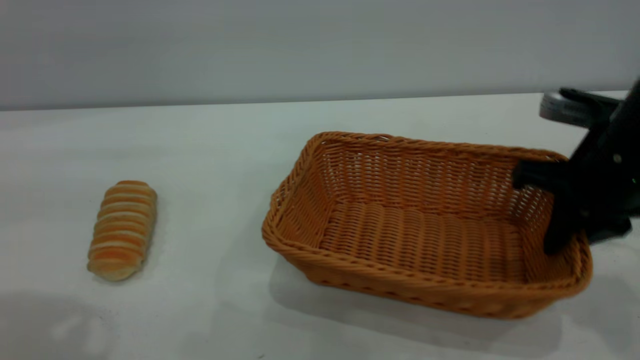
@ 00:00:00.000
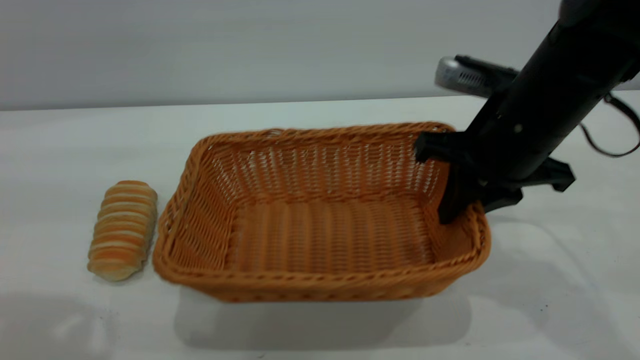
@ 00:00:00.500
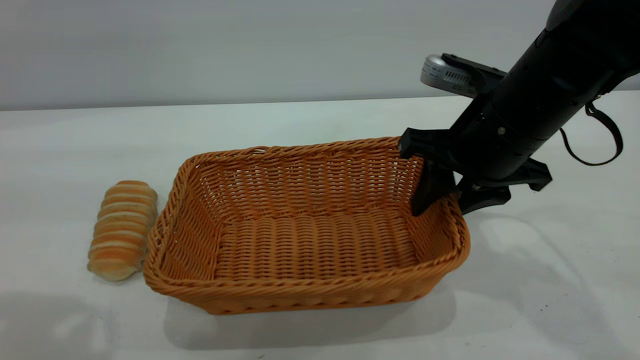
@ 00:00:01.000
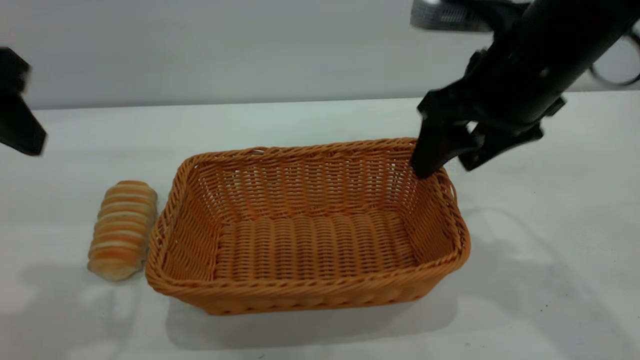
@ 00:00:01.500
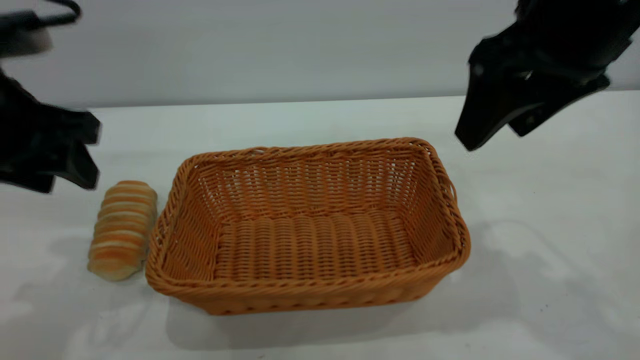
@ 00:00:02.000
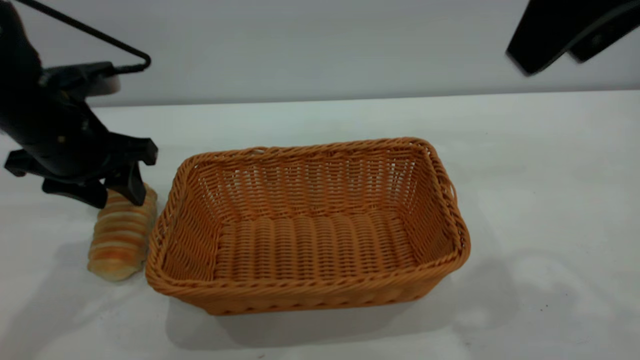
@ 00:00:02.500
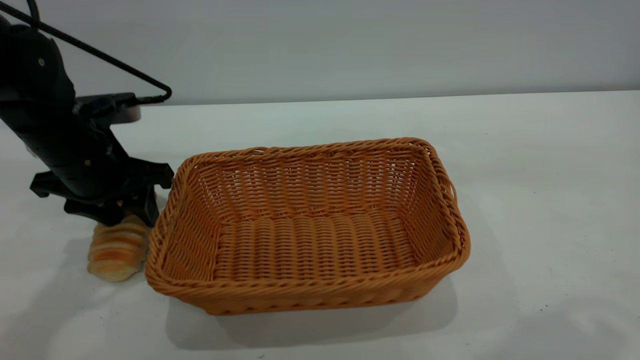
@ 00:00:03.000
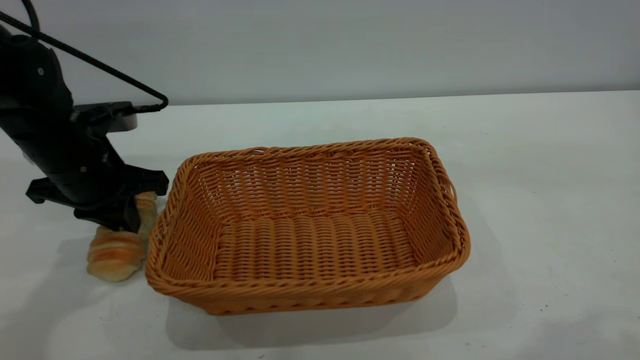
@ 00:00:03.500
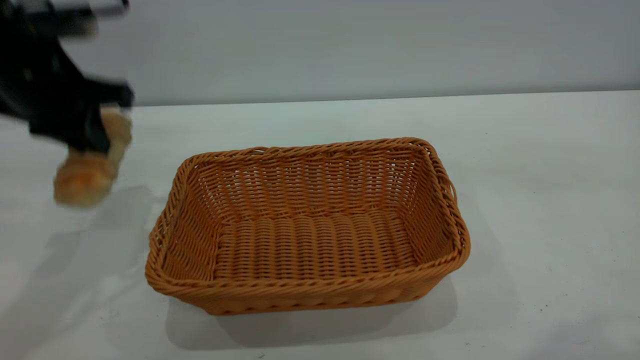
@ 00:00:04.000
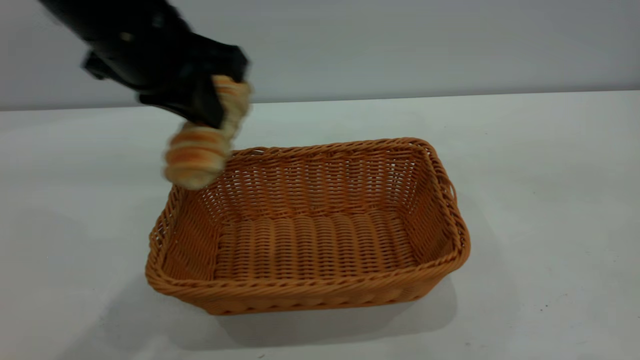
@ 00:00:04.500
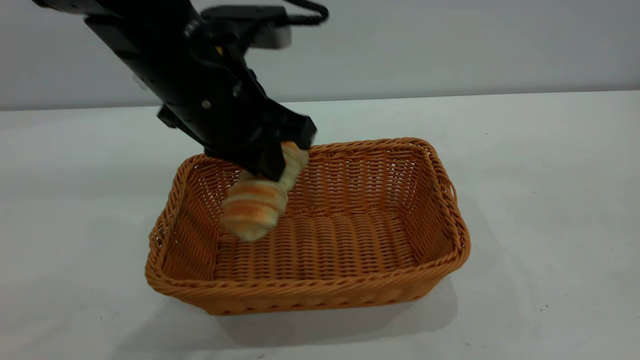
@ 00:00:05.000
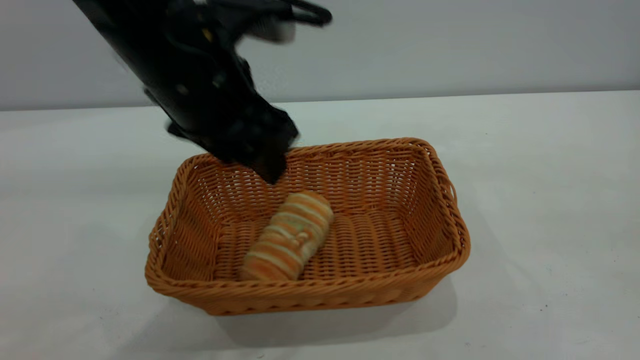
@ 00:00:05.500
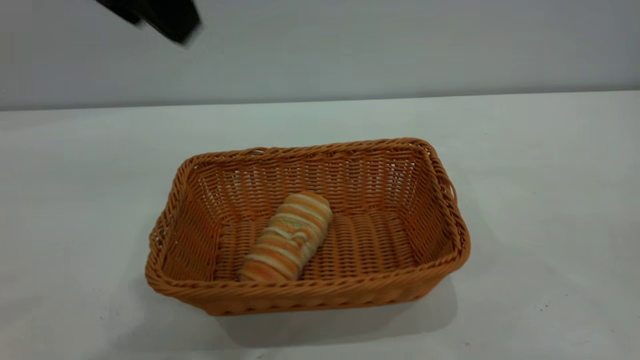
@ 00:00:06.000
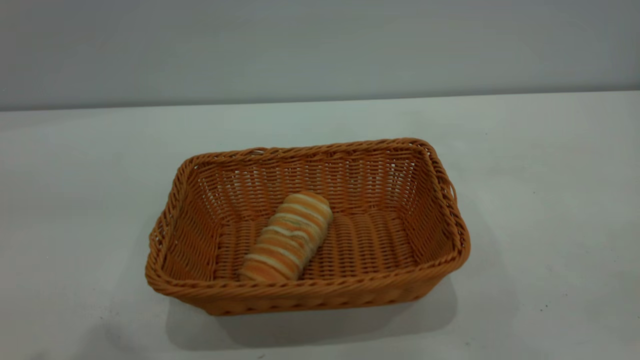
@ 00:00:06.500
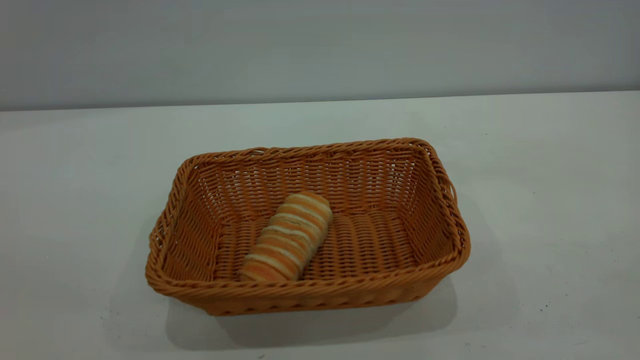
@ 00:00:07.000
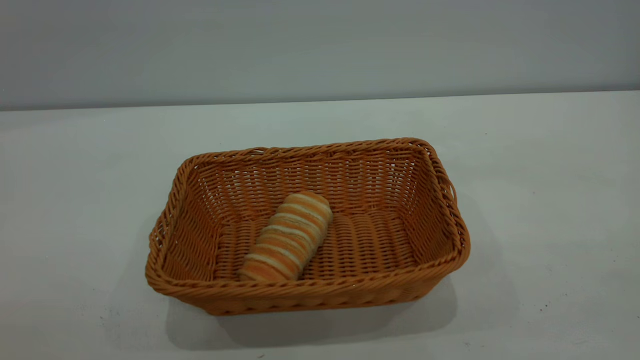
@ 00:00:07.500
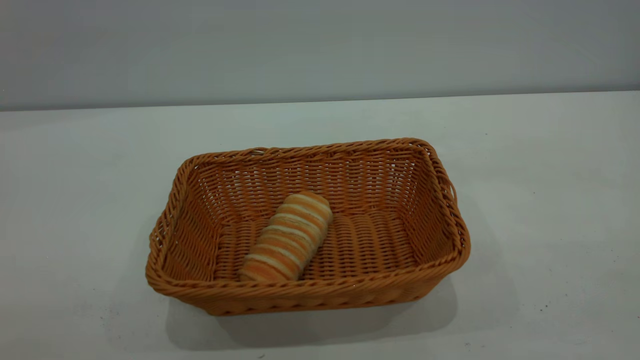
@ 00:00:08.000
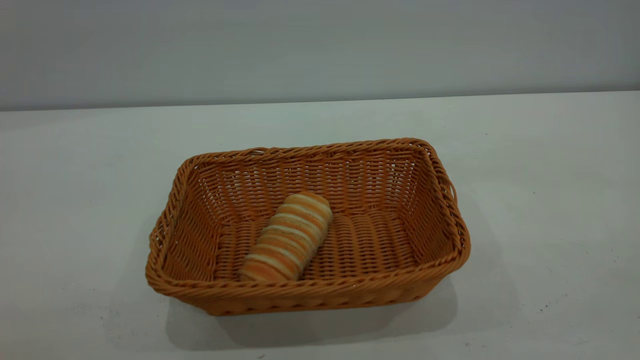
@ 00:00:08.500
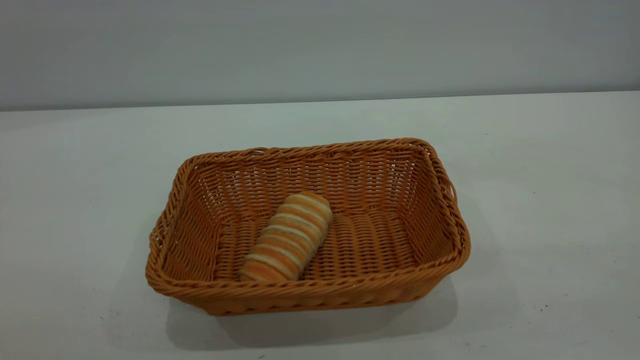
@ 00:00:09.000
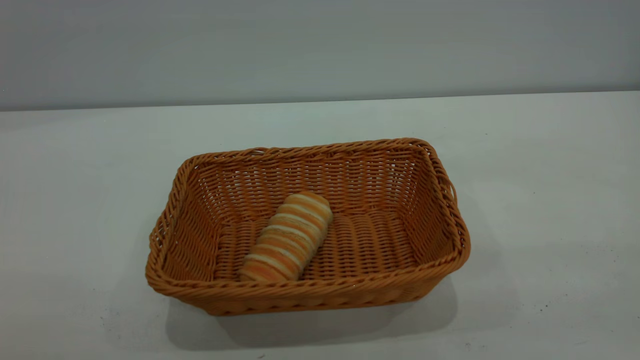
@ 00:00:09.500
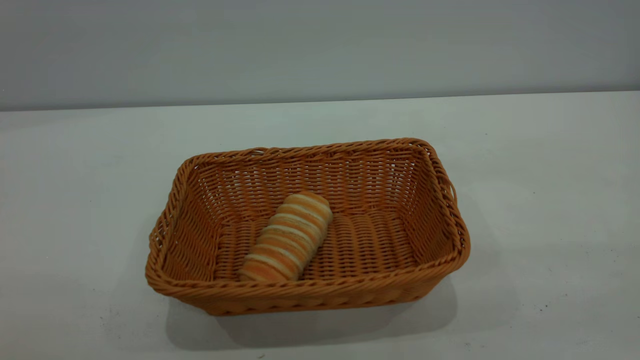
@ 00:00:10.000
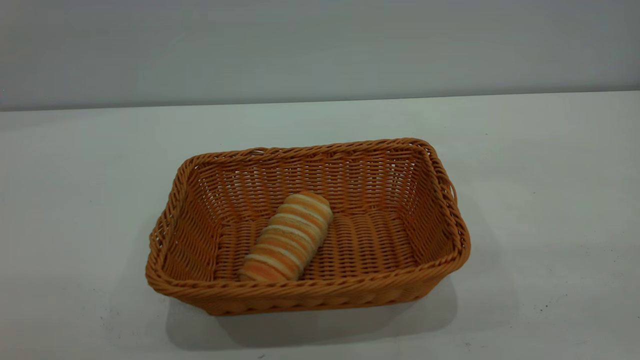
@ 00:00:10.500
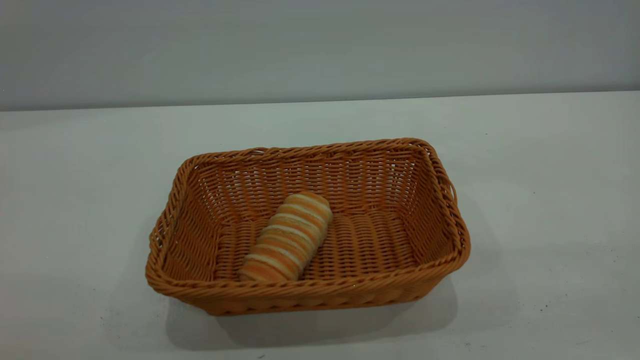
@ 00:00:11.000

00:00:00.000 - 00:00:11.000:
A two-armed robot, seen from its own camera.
Task of the whole recording: One hand grasps the yellow basket and places it in the middle of the table, while the other hand picks up the long bread and puts it into the yellow basket.
Step, 00:00:04.000 - 00:00:05.500: place the bread into the basket.
00:00:00.000 - 00:00:02.000: The right gripper is displaced upward and to the left by some 15 cm, and opens. Meanwhile the left gripper shifts approximately 15 cm downward and forward.
00:00:02.000 - 00:00:03.500: The right gripper goes some 20 cm upward and backward. The left gripper travels downward and forward by roughly 15 cm, and closes up.
00:00:03.500 - 00:00:05.500: The right gripper heads backward and to the right, covering about 15 cm. Meanwhile the left gripper moves to the right, upward and backward, approximately 20 cm, and opens its fingers.
00:00:05.500 - 00:00:07.500: The left gripper is displaced backward and to the left by about 35 cm. The right gripper travels downward by about 15 cm.
